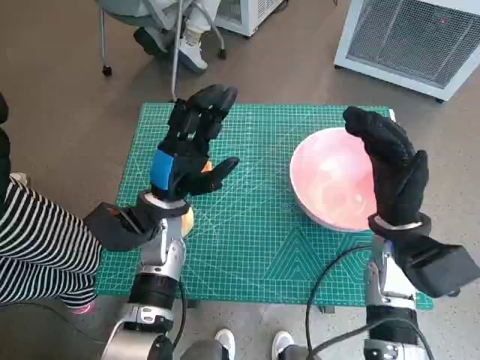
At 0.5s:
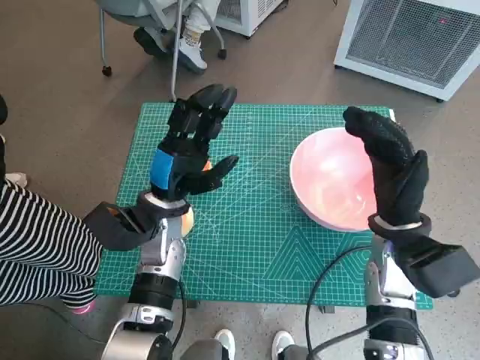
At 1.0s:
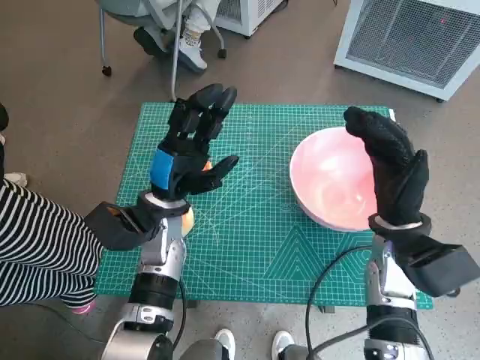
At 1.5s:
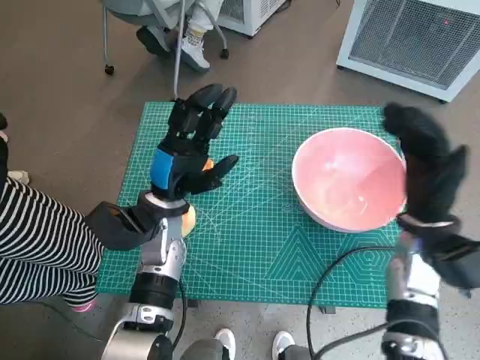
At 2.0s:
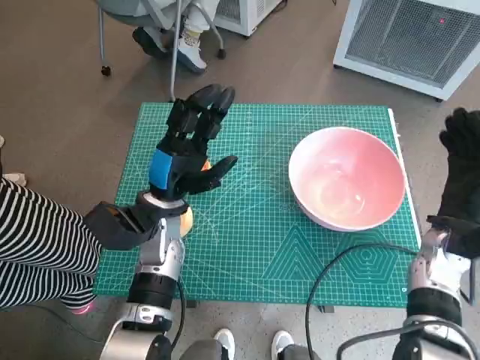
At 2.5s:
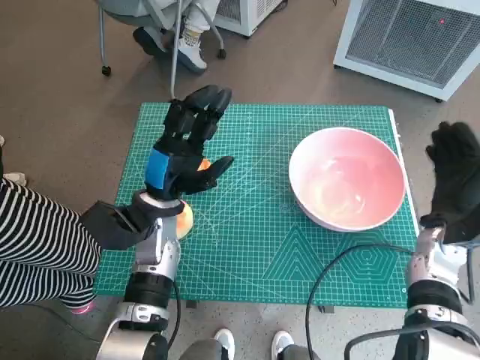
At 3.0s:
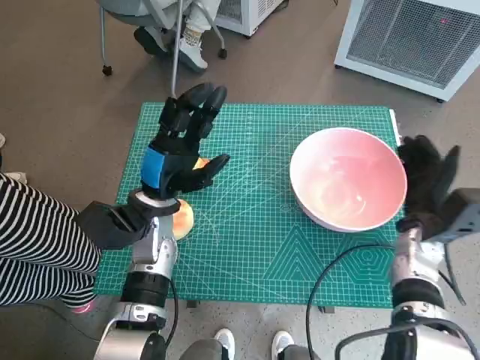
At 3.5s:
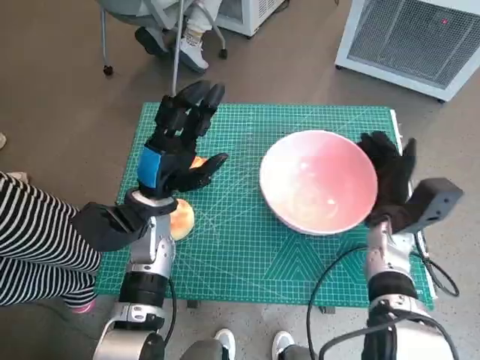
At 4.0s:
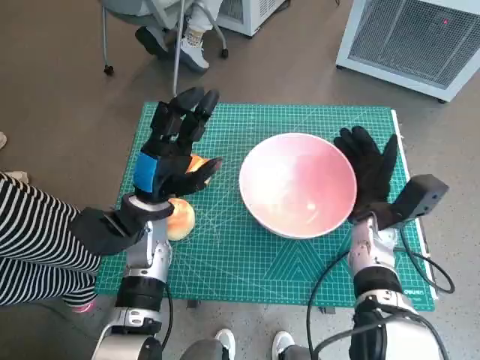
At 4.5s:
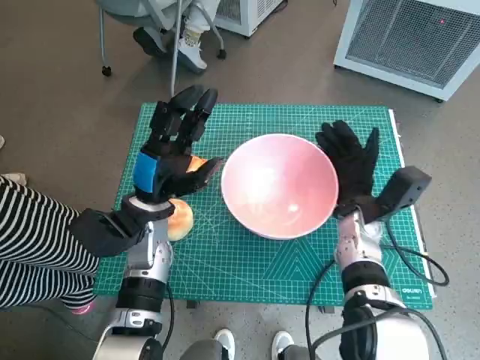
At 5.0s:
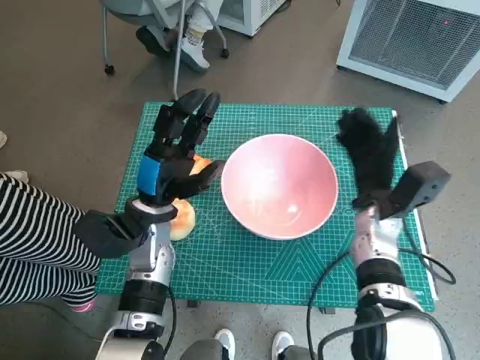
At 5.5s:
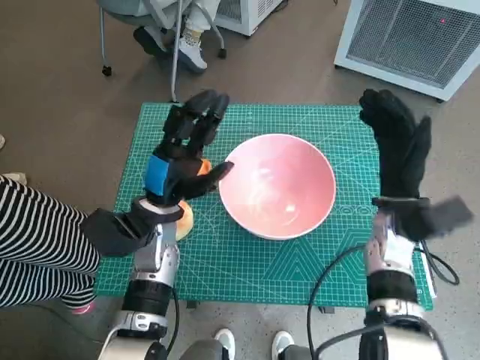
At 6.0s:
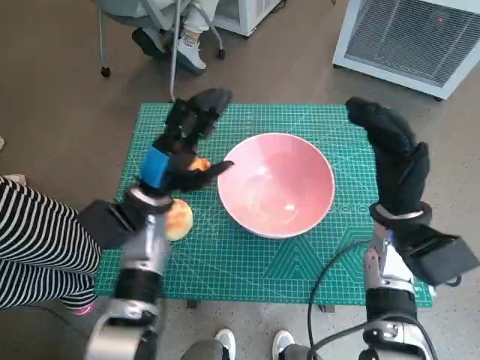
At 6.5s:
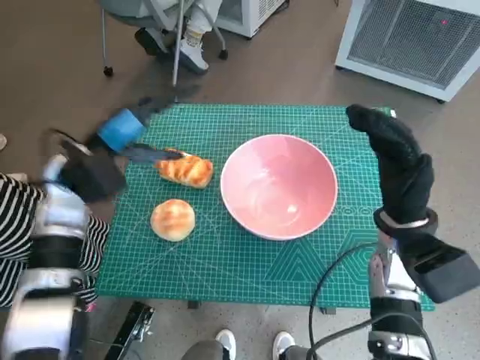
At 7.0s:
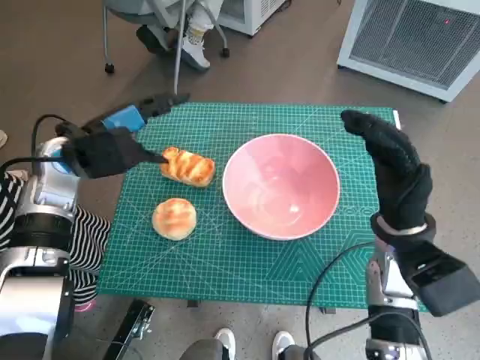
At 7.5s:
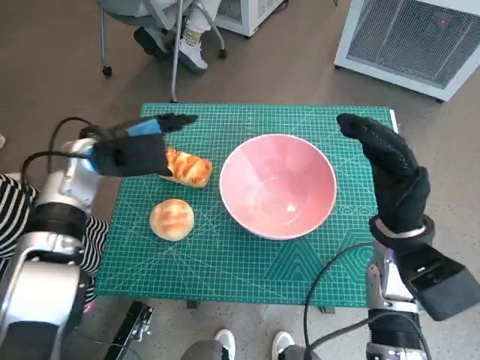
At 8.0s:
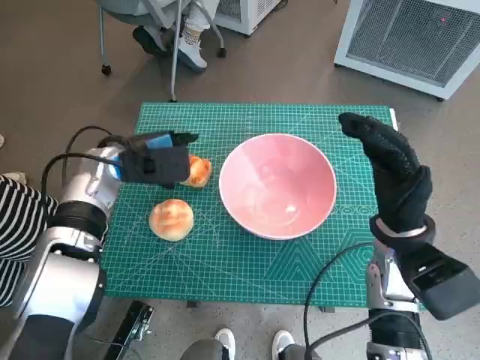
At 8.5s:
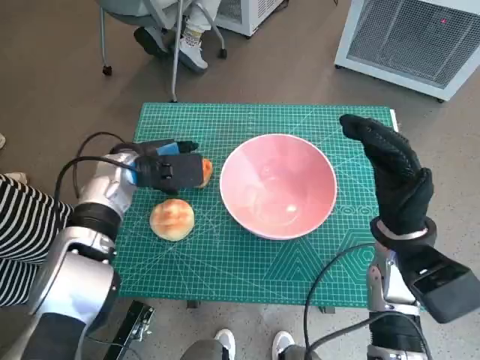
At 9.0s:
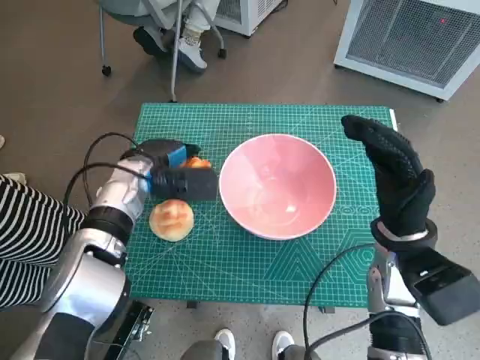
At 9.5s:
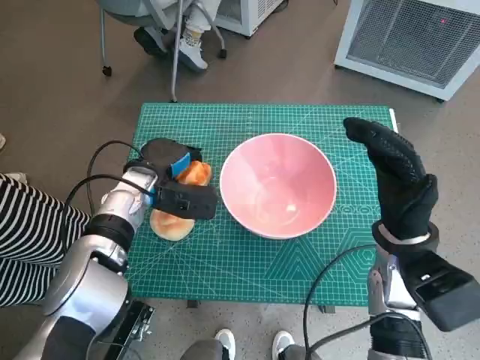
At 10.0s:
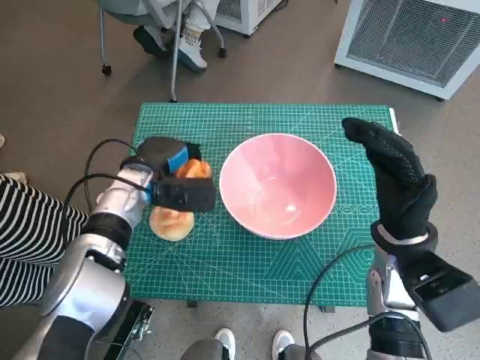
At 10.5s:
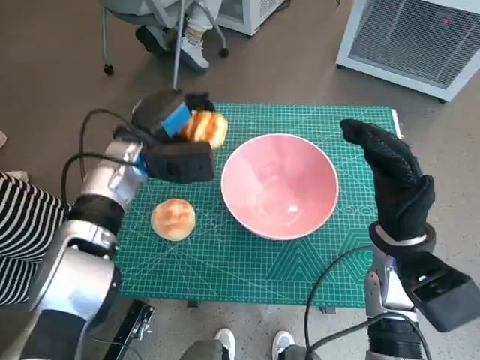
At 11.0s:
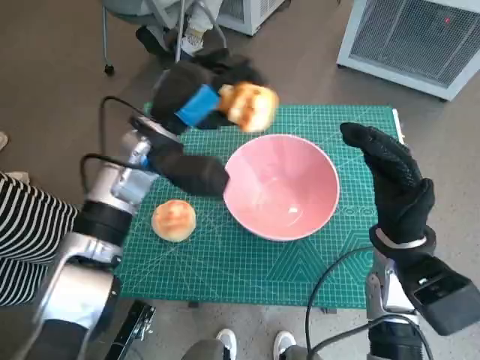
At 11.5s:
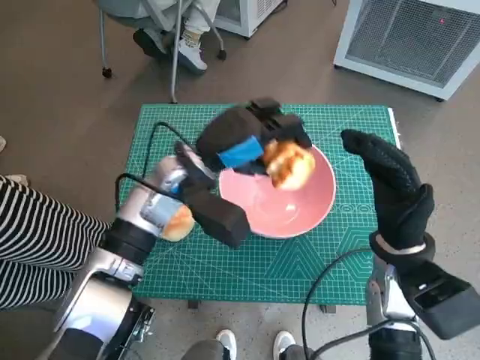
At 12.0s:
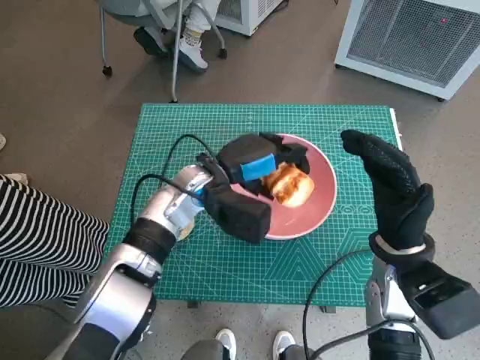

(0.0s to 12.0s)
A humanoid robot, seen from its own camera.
Task of the whole recording: Push the bowl into the center of the table and put the bread into the bowl.
Step, 0.0s - 5.0s: Move the pink bowl to the center of table with right hand.
Step, 5.5s - 9.0s: Grasp the long bread with left hand.
2.0s - 4.0s: The right hand travels to the left by roughly 10 cm.
4.0s - 6.0s: The right hand shifts approximately 5 cm upward.
6.0s - 8.0s: The left hand is displaced forward and to the left by roughly 10 cm.
8.0s - 10.0s: The left hand ends up about 5 cm from where it was.
10.0s - 12.0s: The left hand travels to the right by some 10 cm.

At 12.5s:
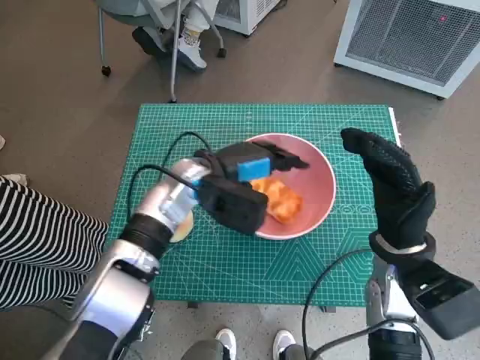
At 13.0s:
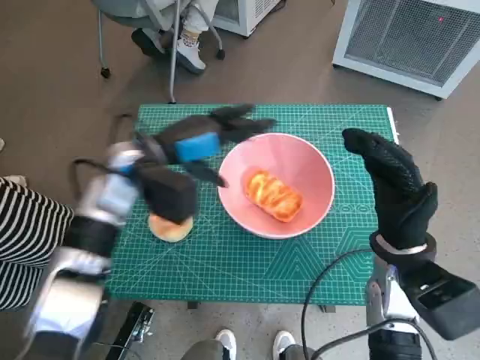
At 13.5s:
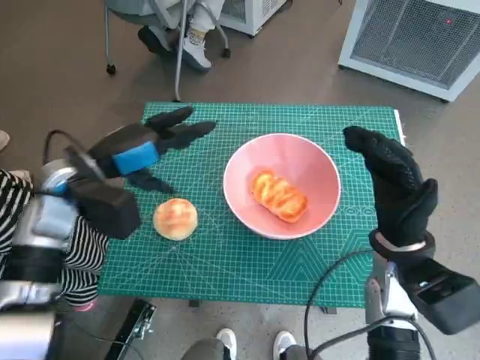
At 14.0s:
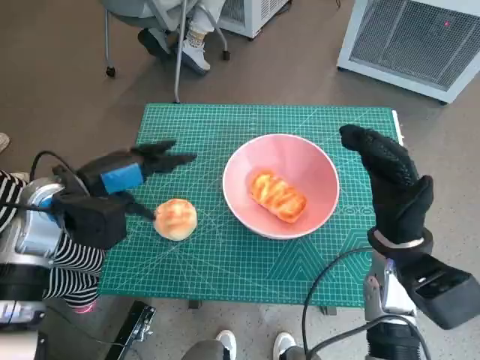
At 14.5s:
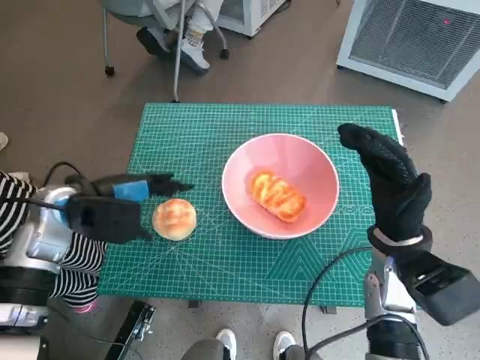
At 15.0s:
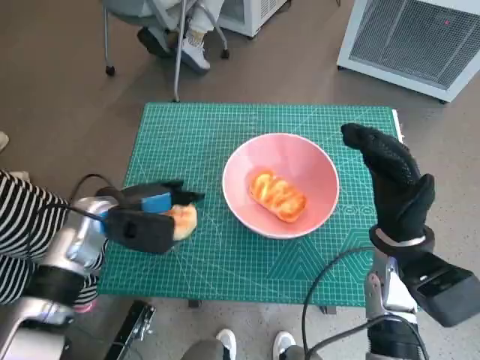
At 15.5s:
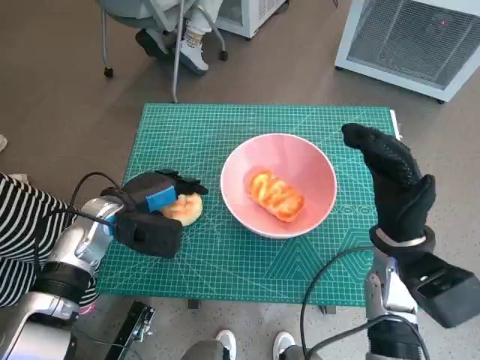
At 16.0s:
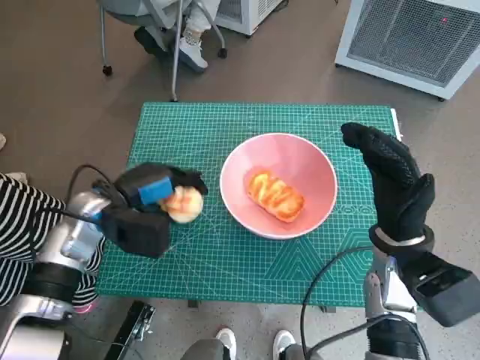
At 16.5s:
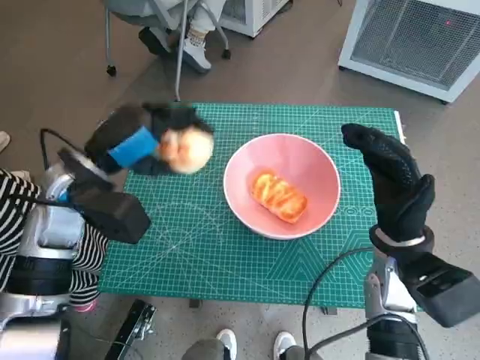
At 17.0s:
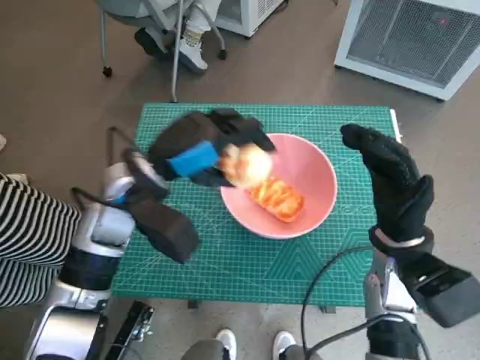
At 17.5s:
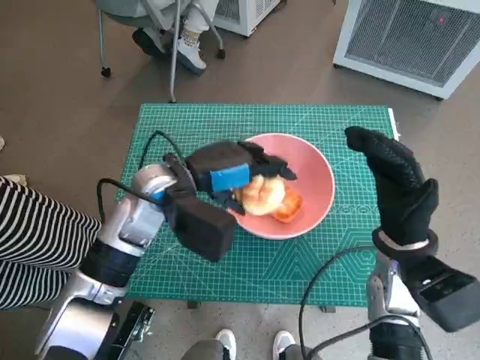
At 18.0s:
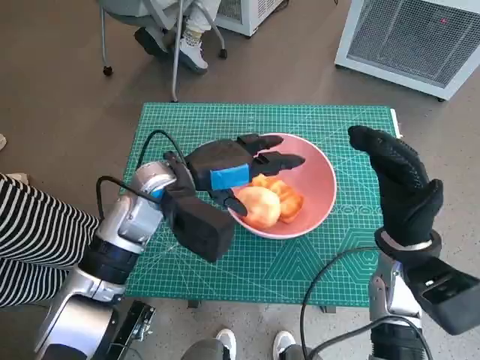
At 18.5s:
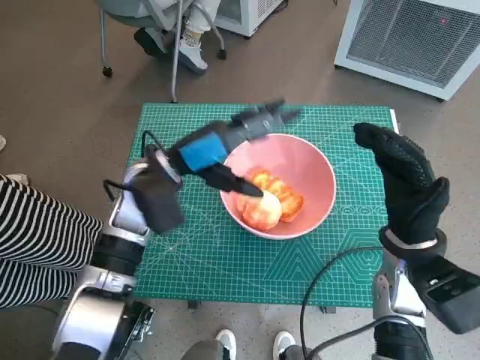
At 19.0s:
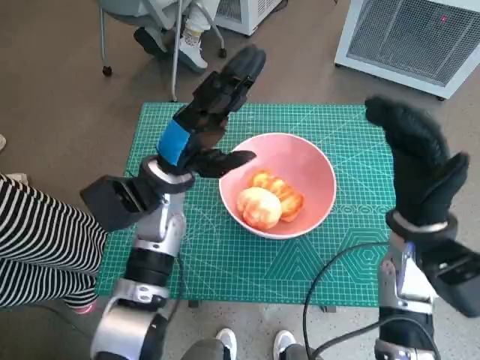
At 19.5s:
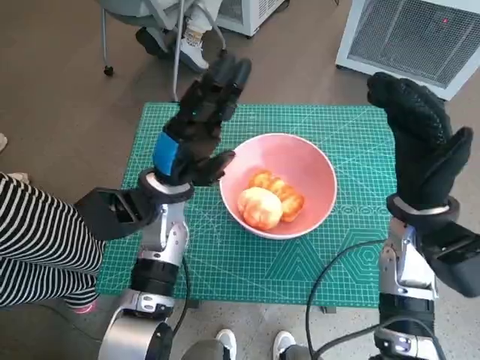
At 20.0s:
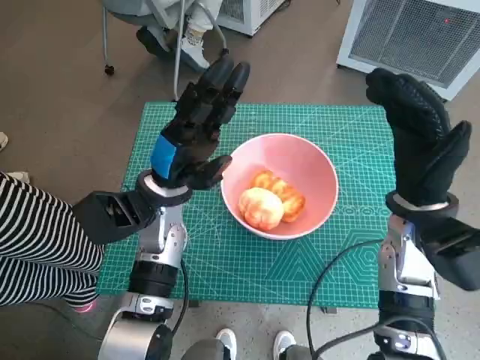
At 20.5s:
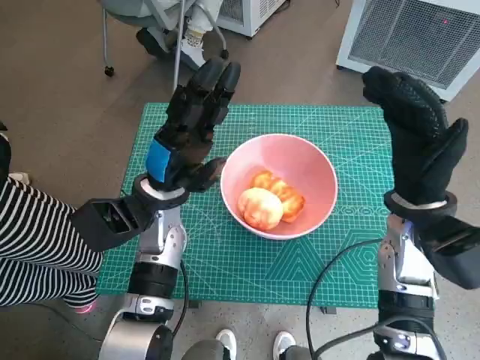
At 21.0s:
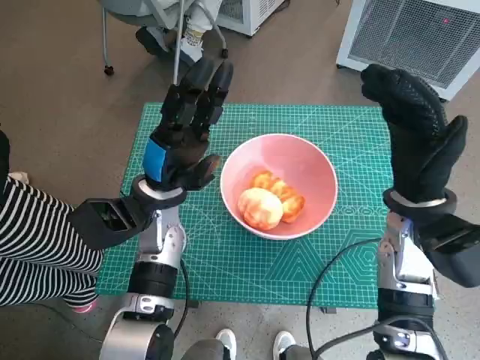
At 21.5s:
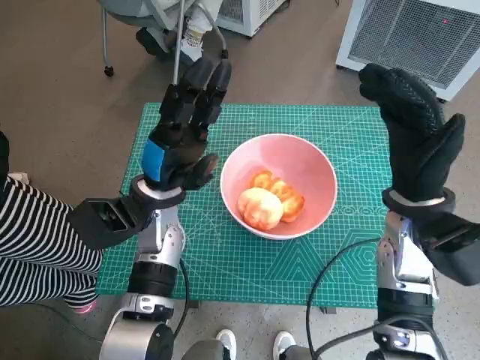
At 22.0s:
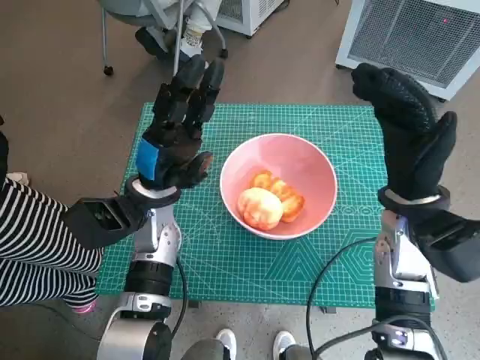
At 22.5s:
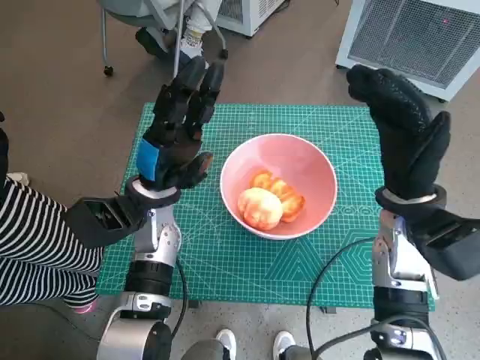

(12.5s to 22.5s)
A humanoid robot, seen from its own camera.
Task of the whole recording: Push the bowl into the center of the table and put the bread into the bowl.
Step, 13.0s - 15.0s: Grasp the round bread with left hand.
Step, 15.5s - 18.5s: Place the round bread in pink bowl with left hand.
12.5s - 14.5s: The left hand moves to the left, roughly 15 cm.
14.5s - 16.5s: The left hand moves approximately 5 cm.
16.5s - 18.5s: The left hand goes approximately 10 cm to the right.
18.5s - 20.5s: The right hand shifts by approximately 5 cm.
20.5s - 22.5s: The hands make only small movements.

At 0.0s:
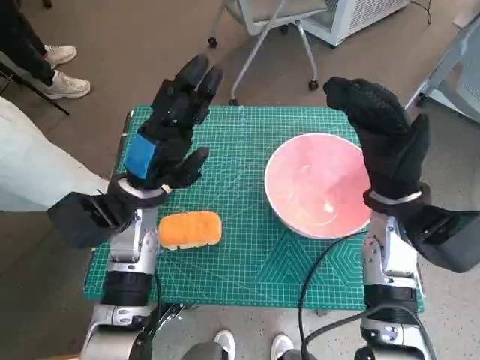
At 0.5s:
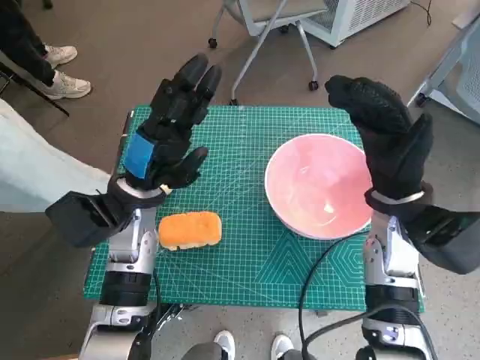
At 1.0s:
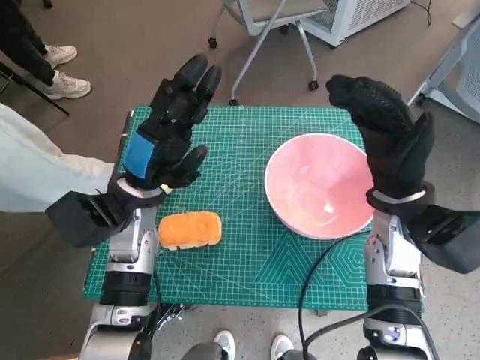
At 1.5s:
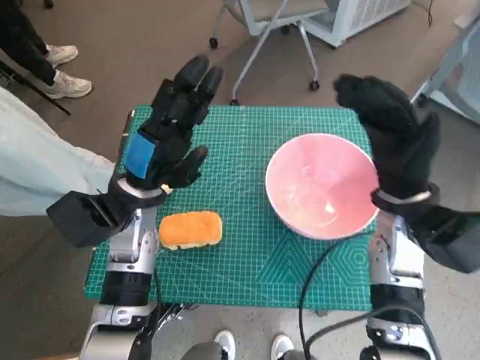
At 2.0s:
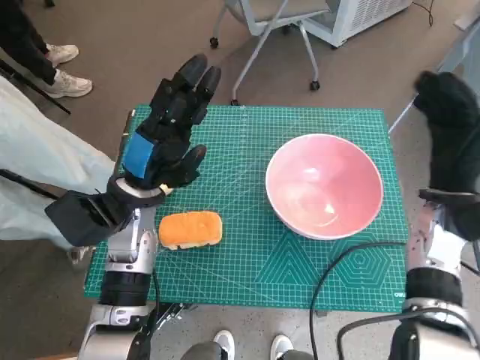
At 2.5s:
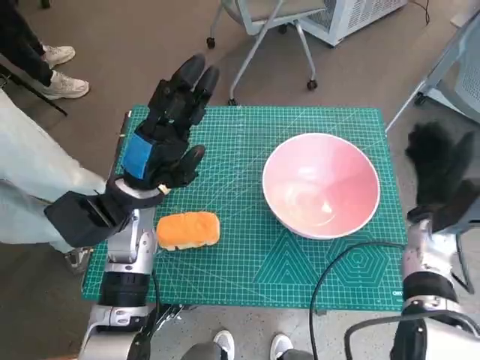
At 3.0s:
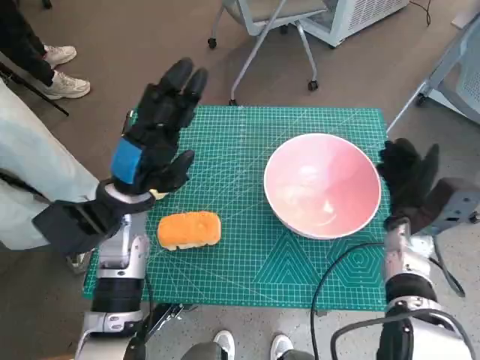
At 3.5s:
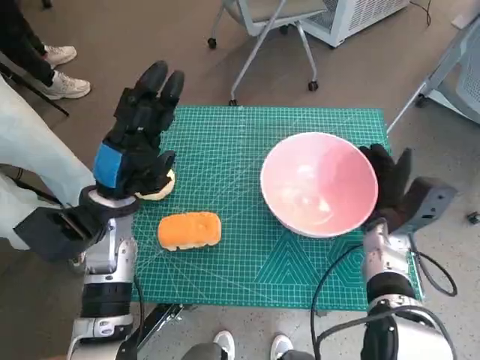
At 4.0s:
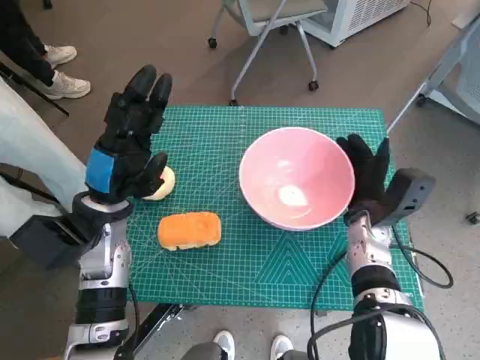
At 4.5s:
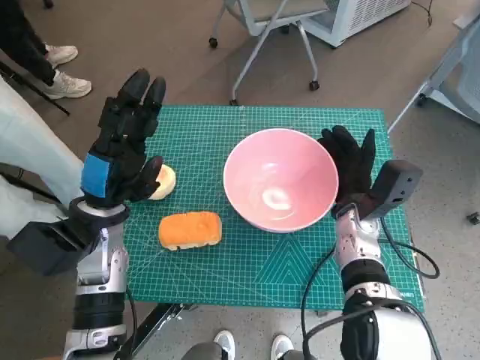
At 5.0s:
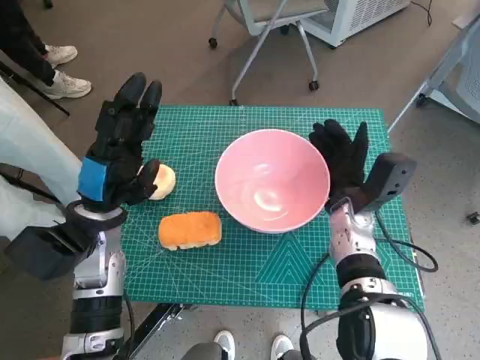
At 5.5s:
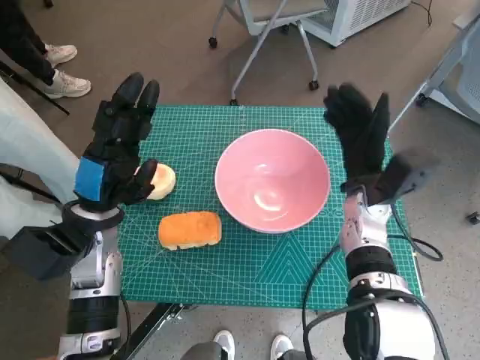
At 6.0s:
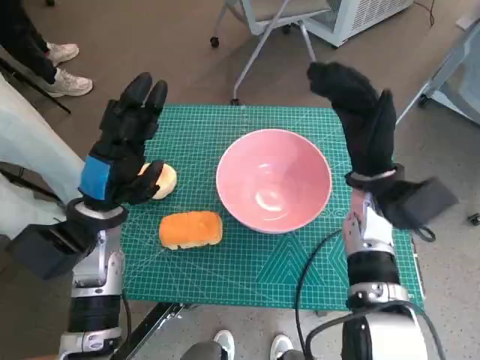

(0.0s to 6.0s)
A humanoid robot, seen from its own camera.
Task of the whole recording: Push the bowl into the center of the table and put the bread into the bowl.
Step, 0.0s - 5.0s: Move the pink bowl to the center of table with right hand.
2.0s - 4.0s: The right hand travels downward and to the left by approximately 10 cm.
4.0s - 6.0s: The right hand is displaced upward by roughly 10 cm.
